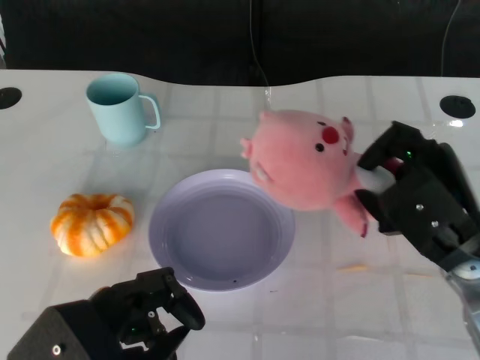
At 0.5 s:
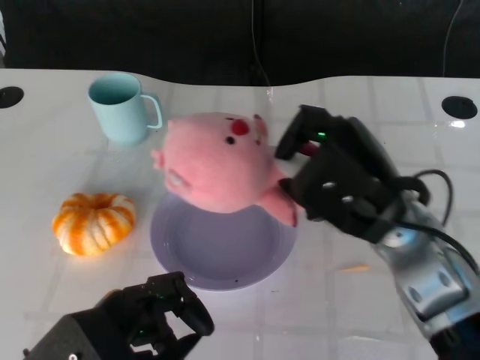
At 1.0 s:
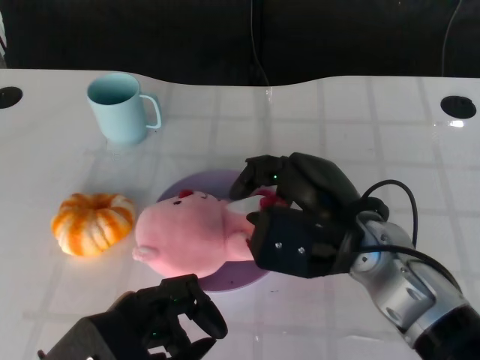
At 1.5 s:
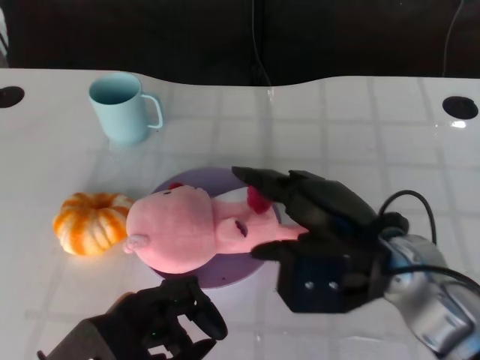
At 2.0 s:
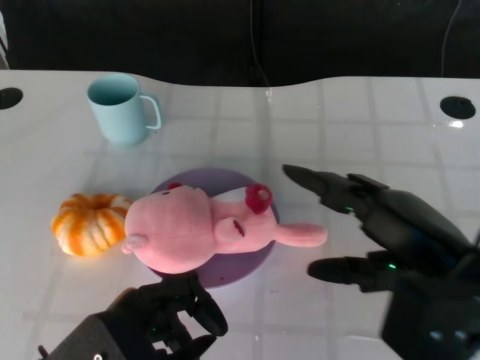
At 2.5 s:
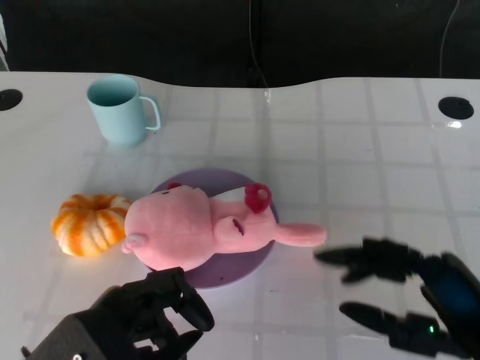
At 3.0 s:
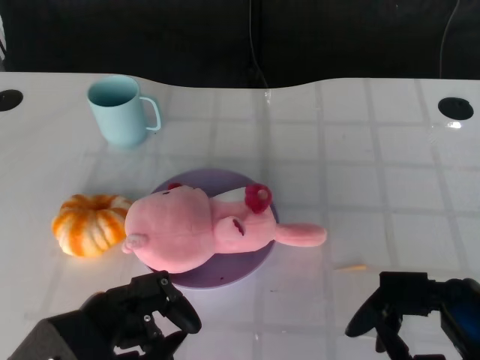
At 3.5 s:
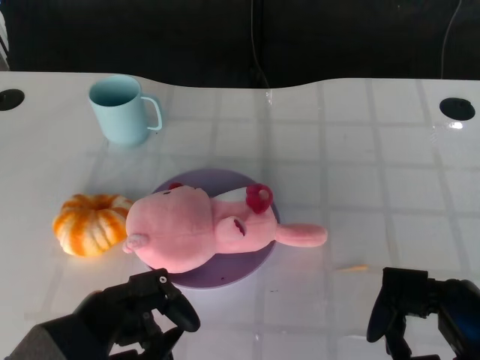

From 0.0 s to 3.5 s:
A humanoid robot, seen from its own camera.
Task of the whole recording: Pick up the doll on the other side of the plate and place it into the plate.
Step, from 0.5 s to 1.5 s: Place the pink doll into the plate with the right gripper.
From 0.0 s to 2.0 s: The right hand heads backward, covering some 5 cm, and reaches approximately 10 cm to the left, then returns.
From 2.0 s to 3.5 s: The right hand heads backward and downward, covering about 10 cm.

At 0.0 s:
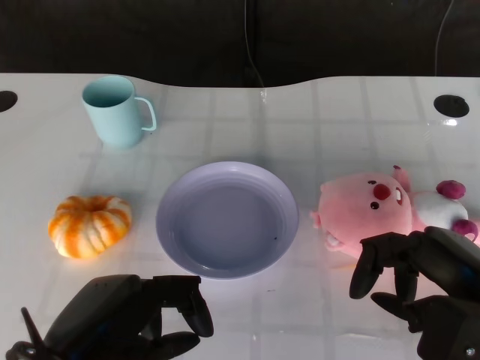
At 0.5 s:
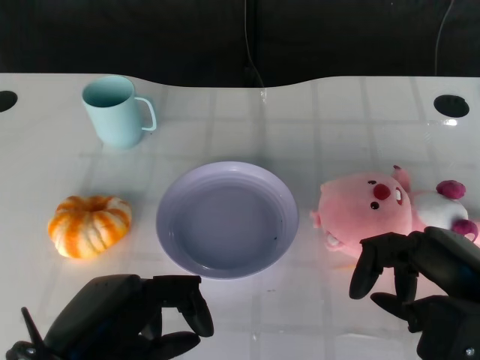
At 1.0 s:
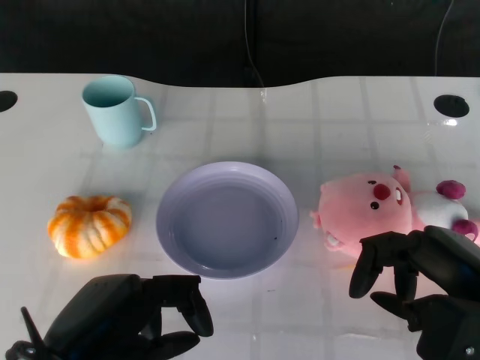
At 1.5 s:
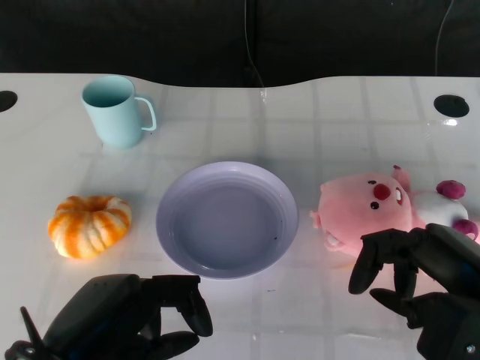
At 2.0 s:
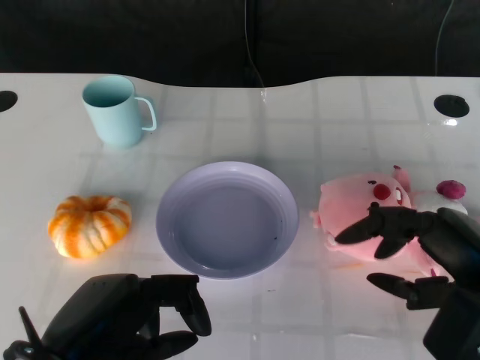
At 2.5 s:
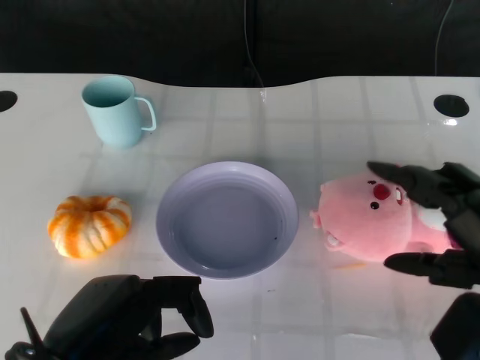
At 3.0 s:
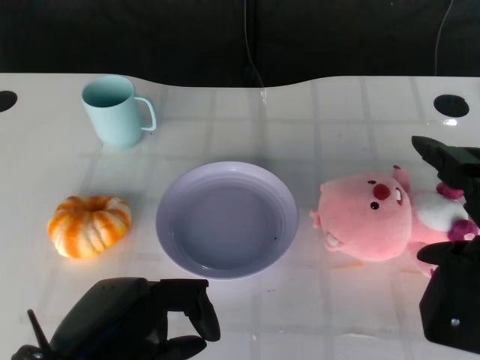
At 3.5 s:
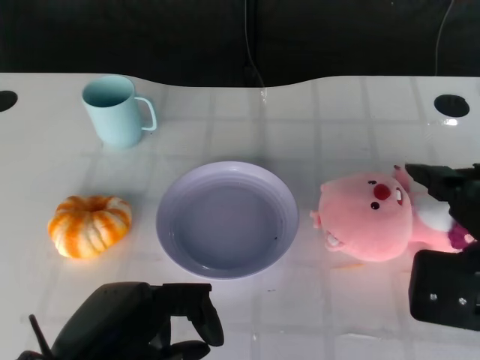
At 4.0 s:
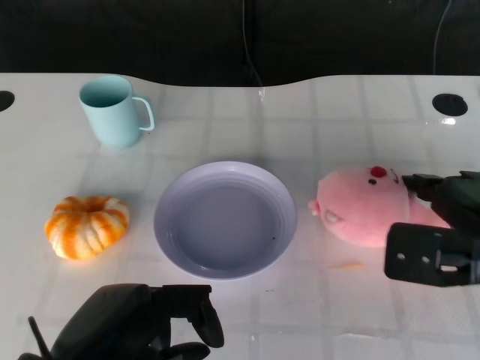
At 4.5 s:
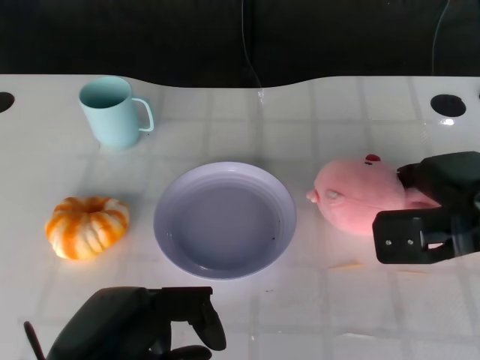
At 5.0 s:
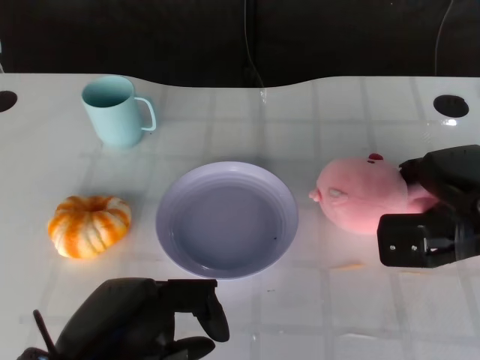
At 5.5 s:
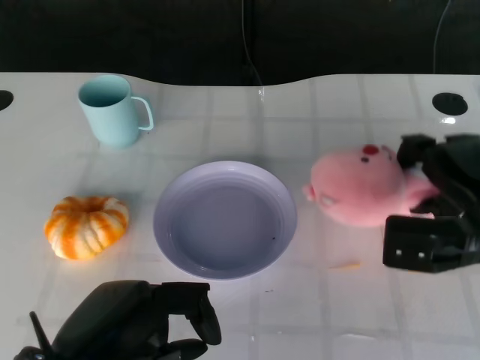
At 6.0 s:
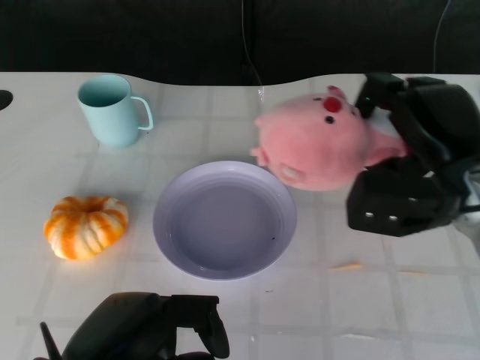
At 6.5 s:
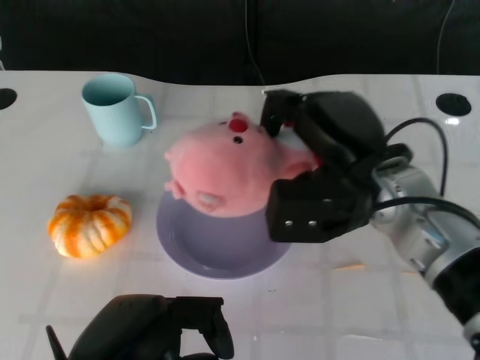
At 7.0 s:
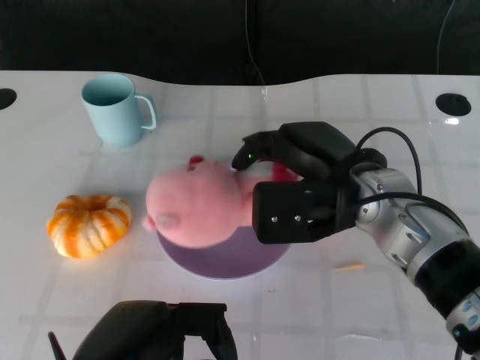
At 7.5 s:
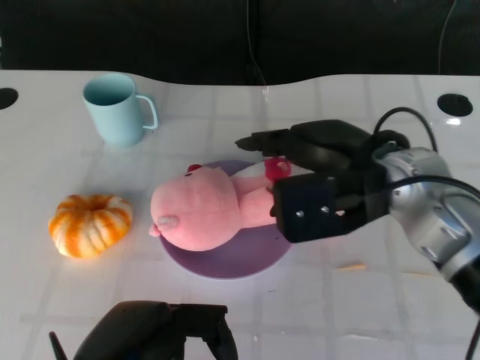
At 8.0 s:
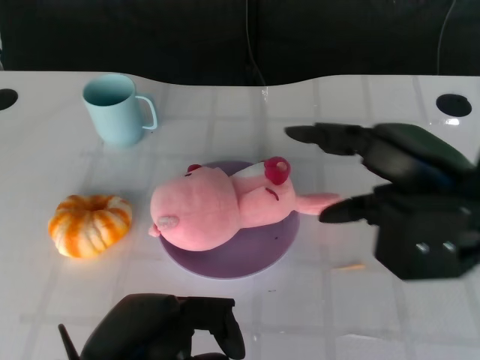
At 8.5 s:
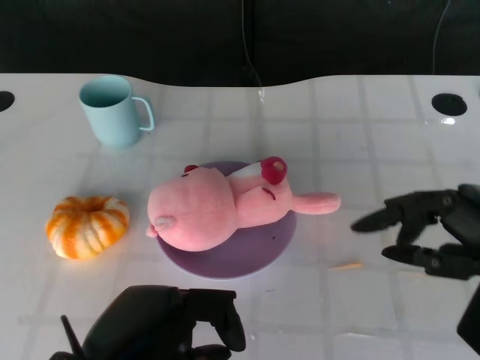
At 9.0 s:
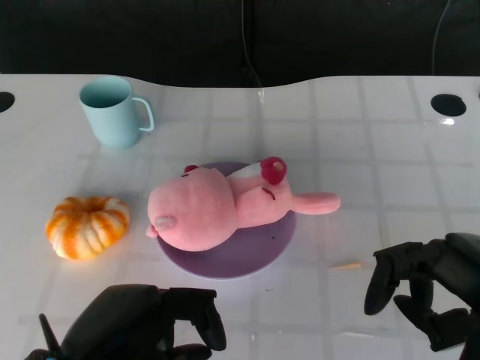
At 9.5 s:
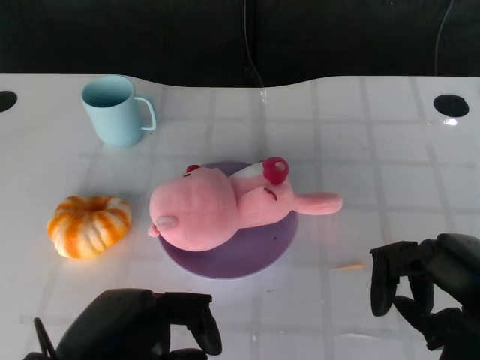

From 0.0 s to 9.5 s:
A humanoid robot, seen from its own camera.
Task of the whole recording: Pick up the doll on the other side of the plate and place it into the plate.
Step, from 2.0 s to 5.5 s: Grasp the pink doll with the right gripper.
Step, from 6.0 s to 7.5 s: Place the pink doll into the plate with the right gripper.
From 2.0 s to 4.0 s: The right hand heads forward, covering some 10 cm.
From 5.5 s to 7.5 s: The right hand shifts about 15 cm to the left and upward.
From 7.5 s to 9.5 s: The right hand is displaced backward and to the right by some 20 cm.
